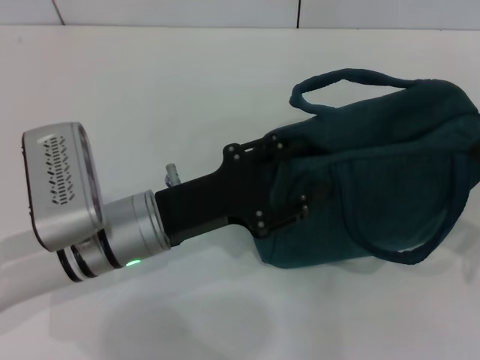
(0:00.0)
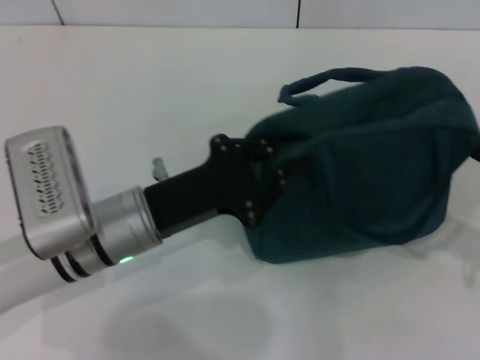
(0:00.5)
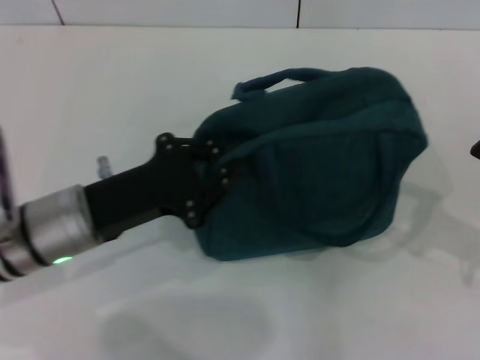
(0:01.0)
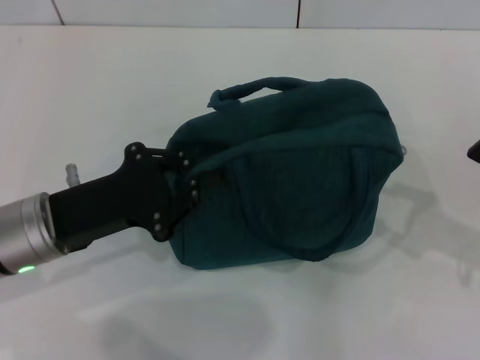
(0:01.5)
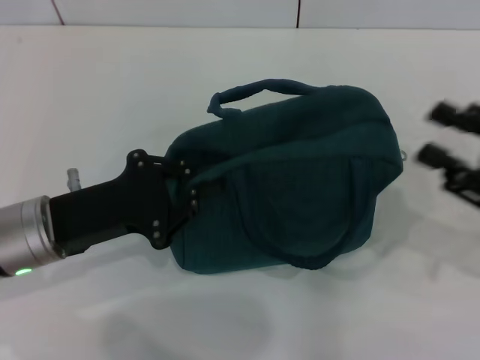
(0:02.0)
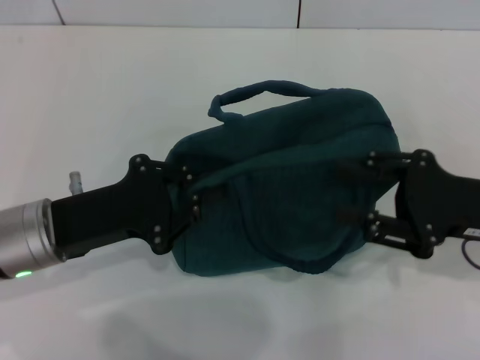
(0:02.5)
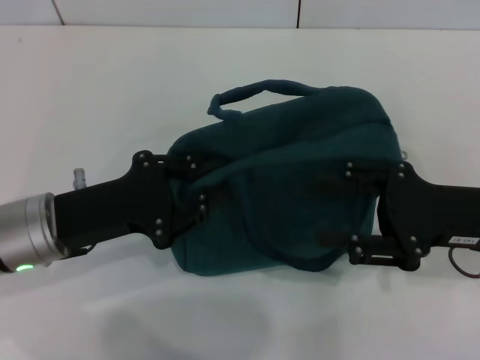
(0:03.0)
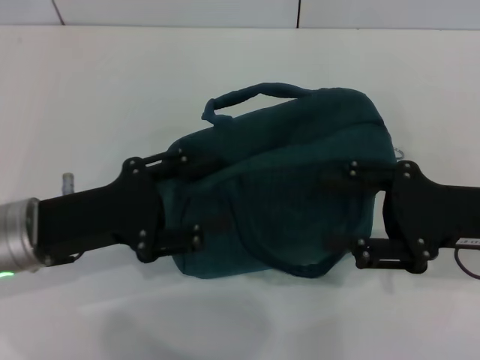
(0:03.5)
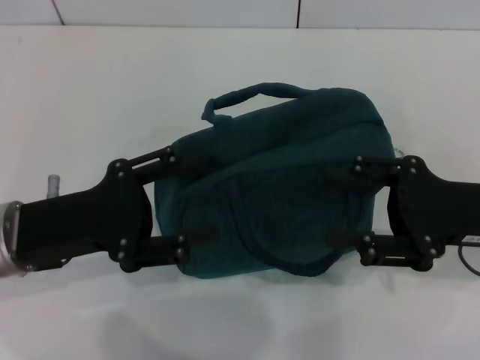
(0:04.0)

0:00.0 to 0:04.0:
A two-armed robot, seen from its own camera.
0:00.0 to 0:02.0: The left gripper moves to the left, some 10 cm, and closes up.
0:02.0 to 0:04.0: The right gripper heads to the left, covering approximately 5 cm, while the left gripper opens.
